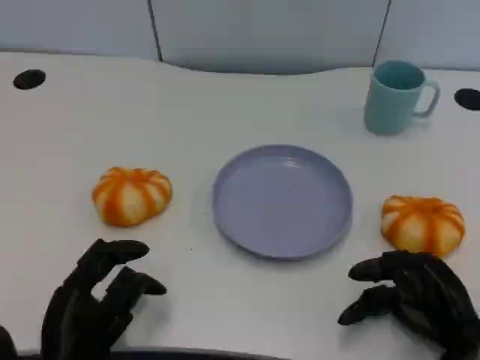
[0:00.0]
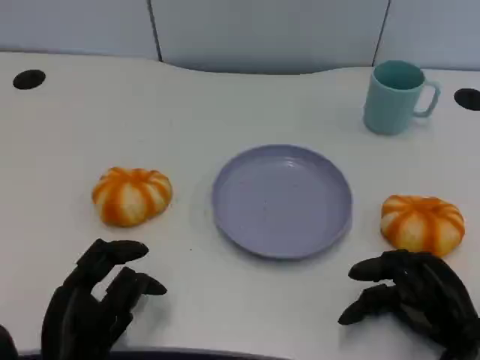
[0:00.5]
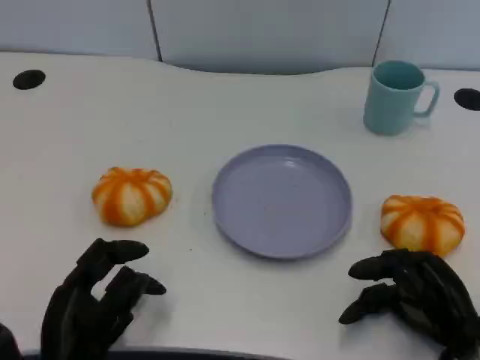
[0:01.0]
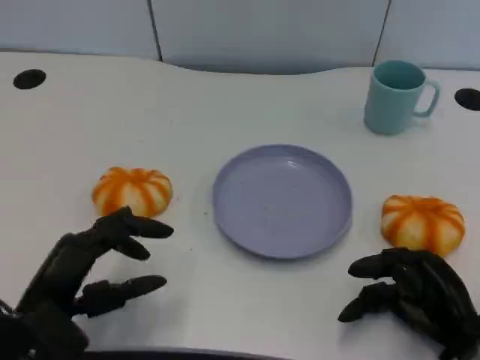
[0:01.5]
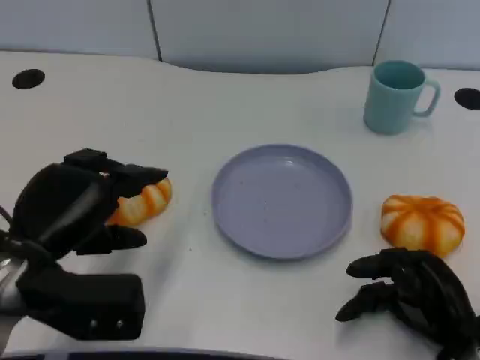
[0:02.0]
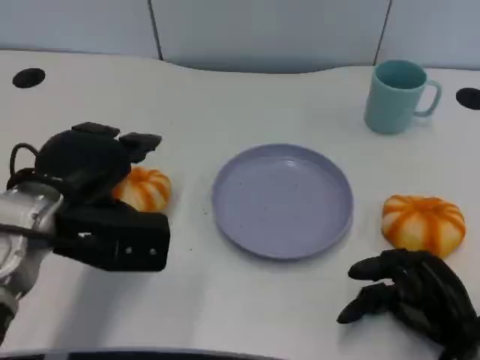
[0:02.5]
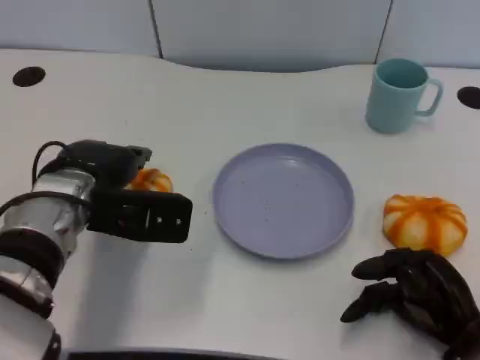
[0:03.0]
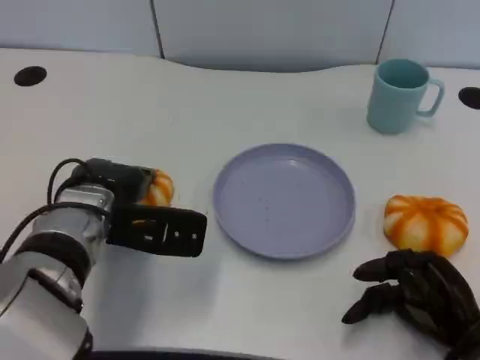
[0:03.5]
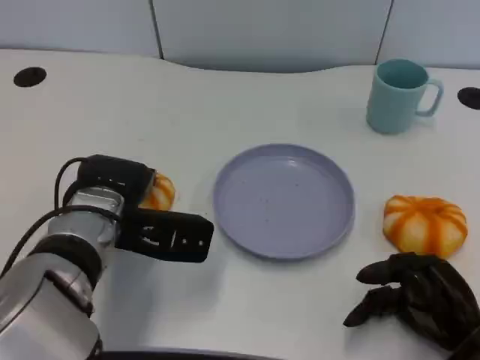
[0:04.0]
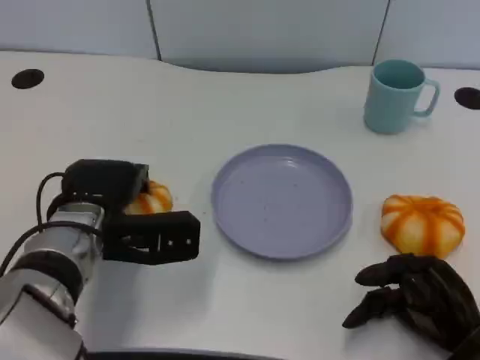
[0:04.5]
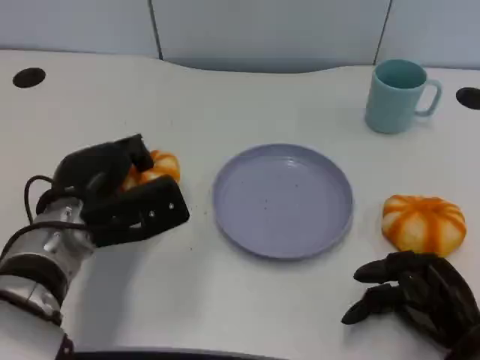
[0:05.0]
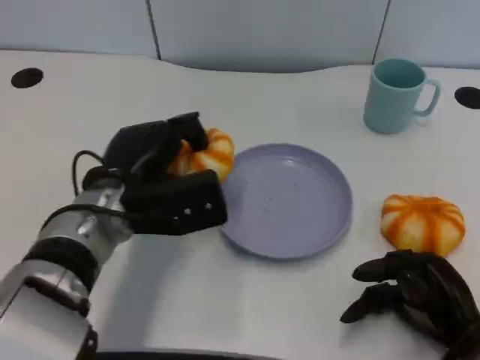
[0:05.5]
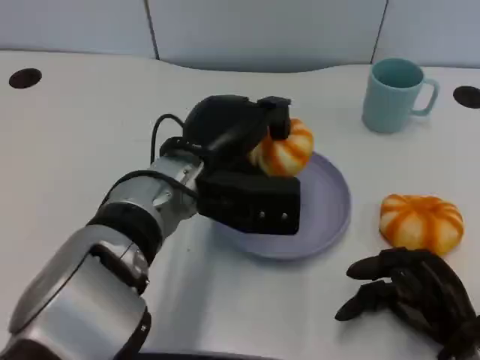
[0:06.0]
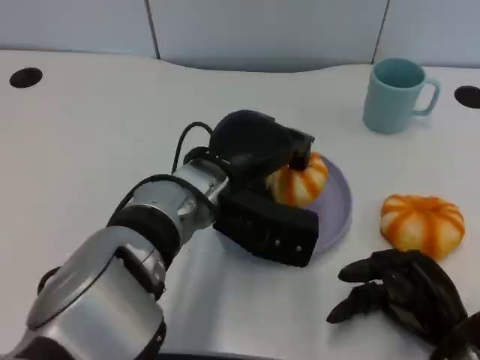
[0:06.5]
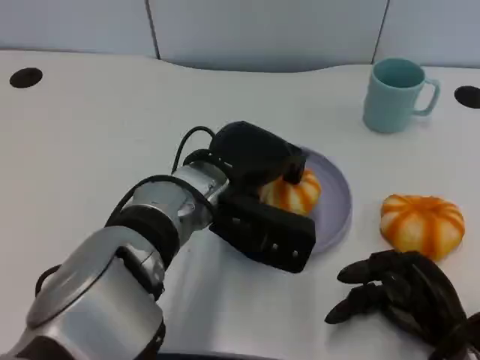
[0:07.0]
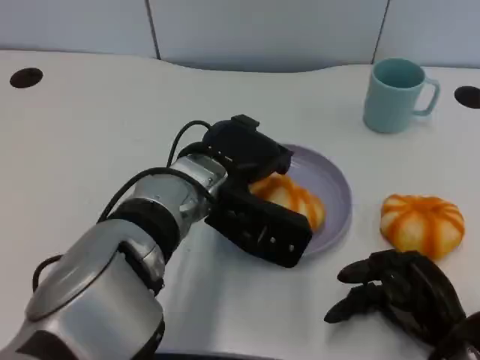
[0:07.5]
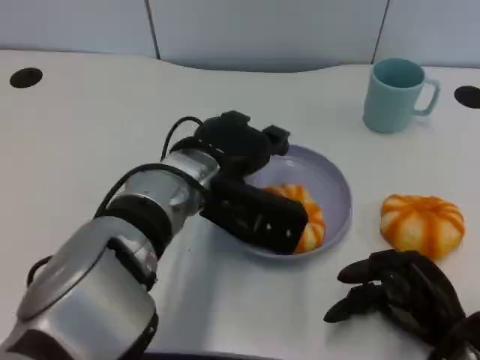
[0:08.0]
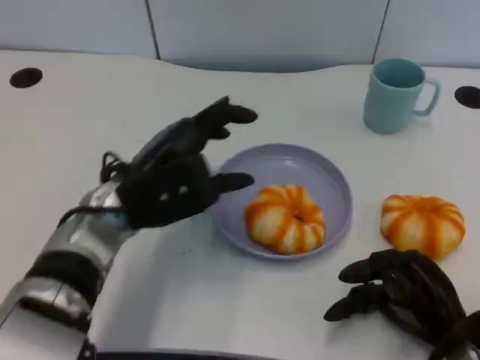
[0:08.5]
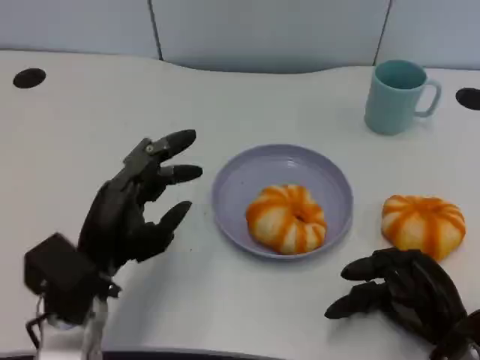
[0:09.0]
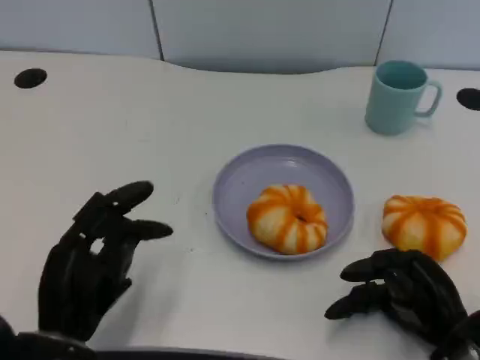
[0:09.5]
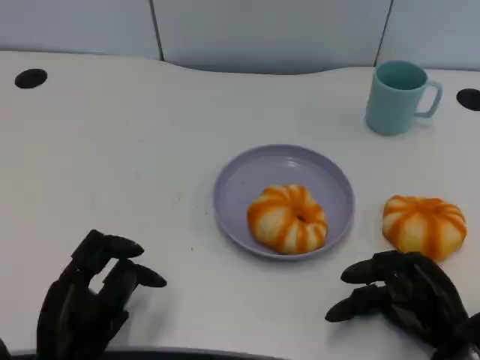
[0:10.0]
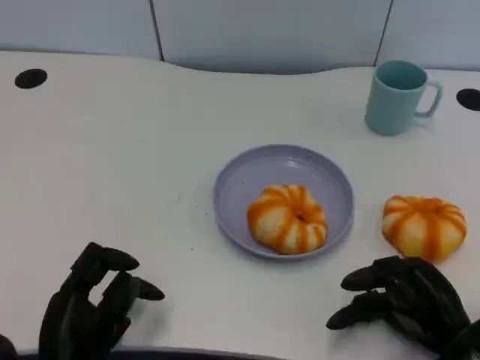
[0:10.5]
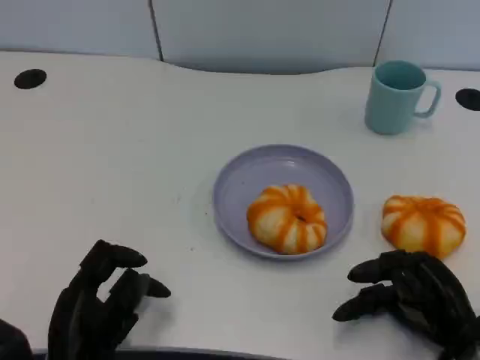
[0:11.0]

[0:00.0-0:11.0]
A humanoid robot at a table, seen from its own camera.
Task of the whole recording: Grasp the bread from the table and place it into the plate.
0:00.0 to 0:02.0: The left hand heads upward and forward, covering some 15 cm.
0:02.0 to 0:03.5: The left hand heads forward and to the right, covering some 10 cm.
0:05.5 to 0:07.5: The left hand moves to the right, about 10 cm.
0:07.5 to 0:09.0: The left hand heads to the left, backward and downward, covering some 15 cm.
0:09.0 to 0:11.0: The left hand goes some 10 cm backward and downward.

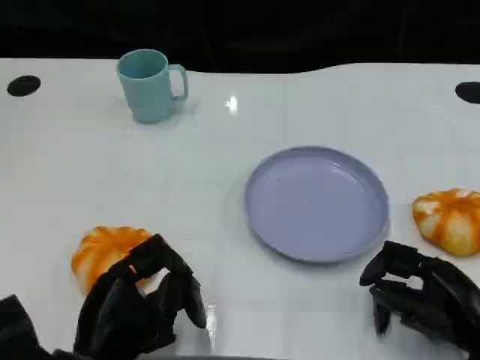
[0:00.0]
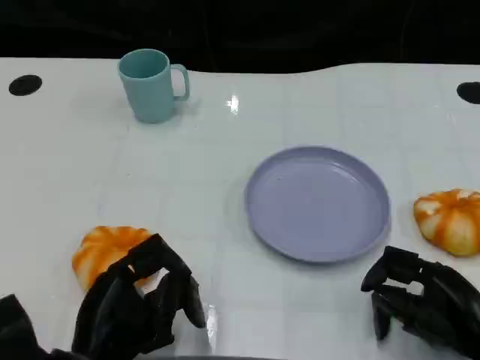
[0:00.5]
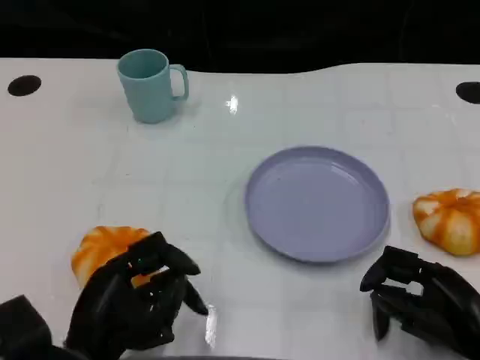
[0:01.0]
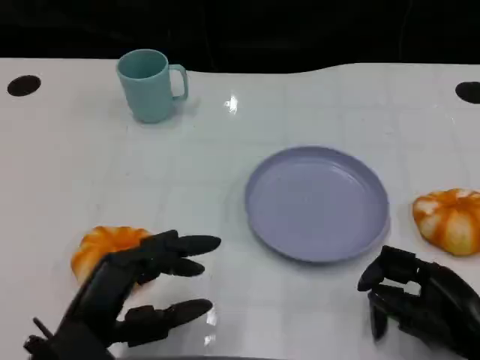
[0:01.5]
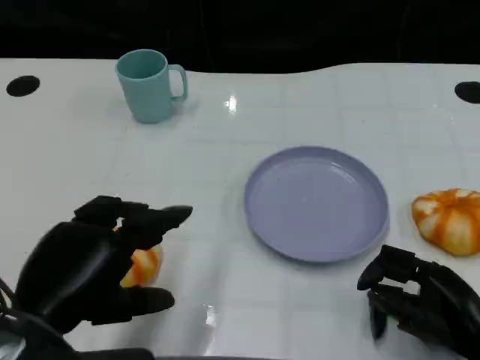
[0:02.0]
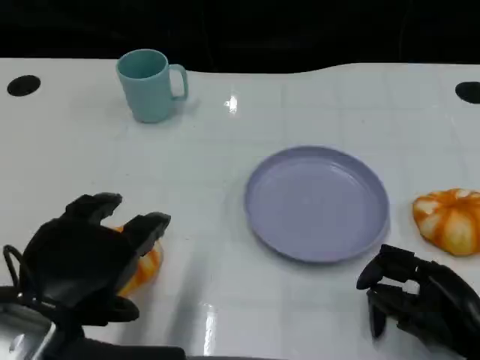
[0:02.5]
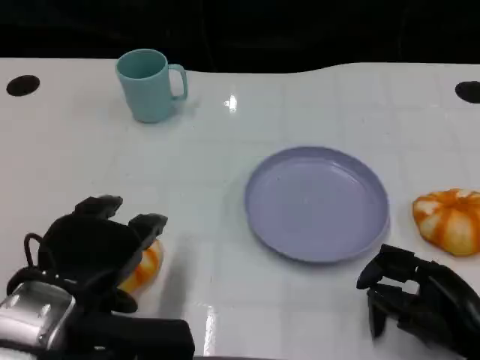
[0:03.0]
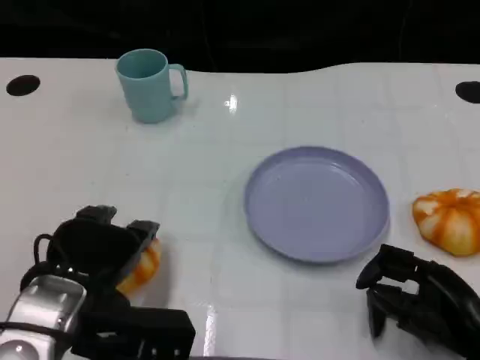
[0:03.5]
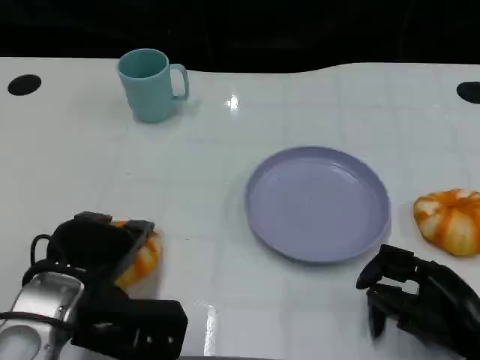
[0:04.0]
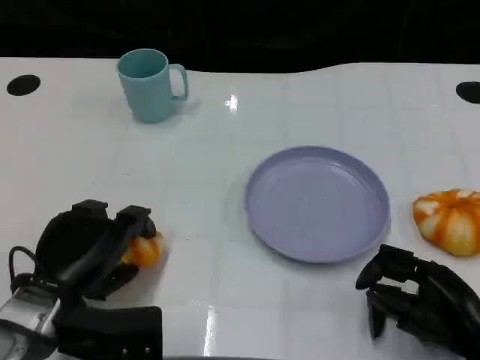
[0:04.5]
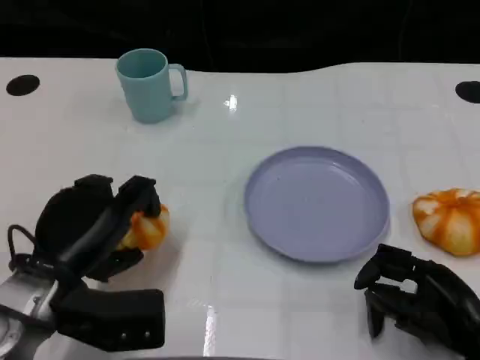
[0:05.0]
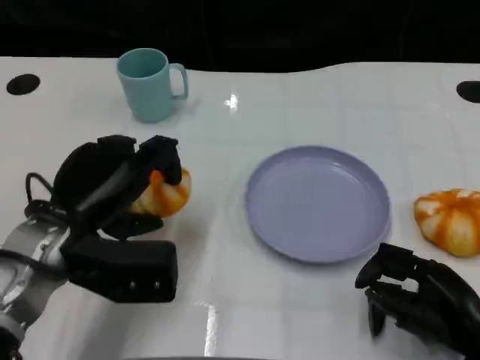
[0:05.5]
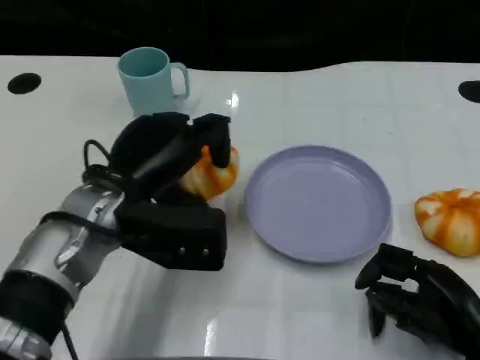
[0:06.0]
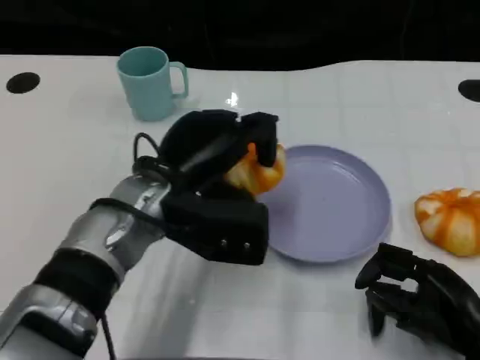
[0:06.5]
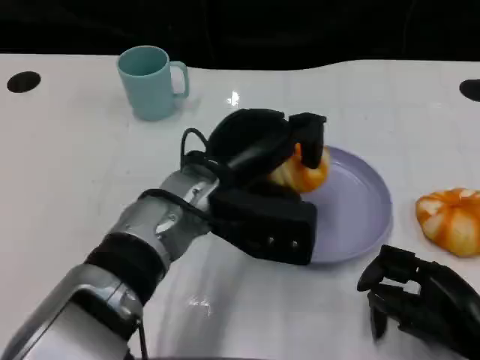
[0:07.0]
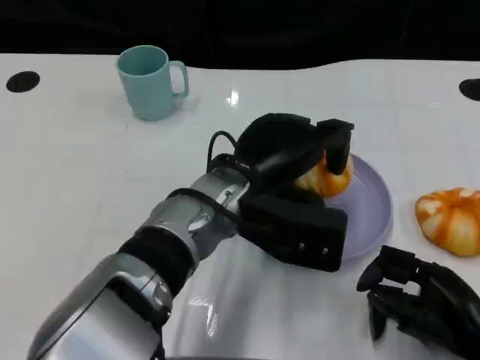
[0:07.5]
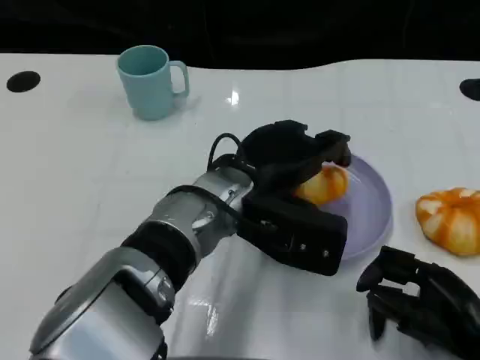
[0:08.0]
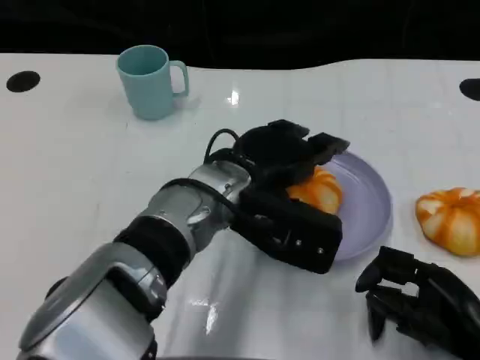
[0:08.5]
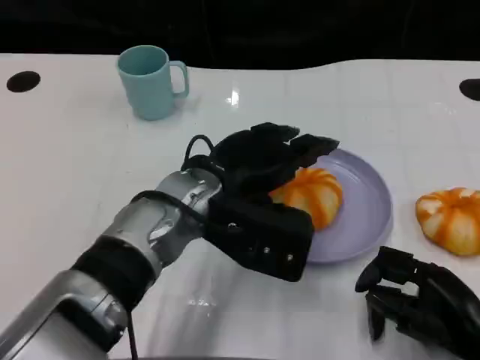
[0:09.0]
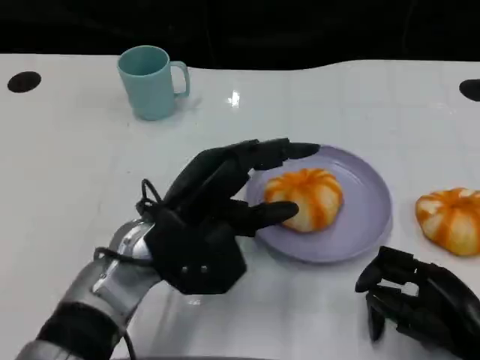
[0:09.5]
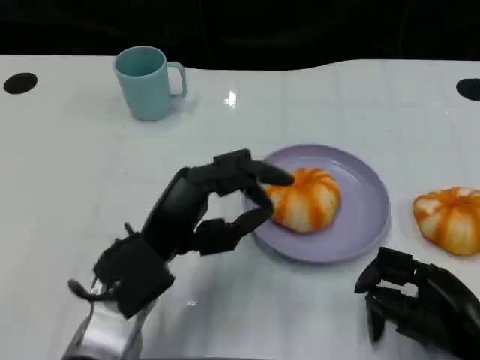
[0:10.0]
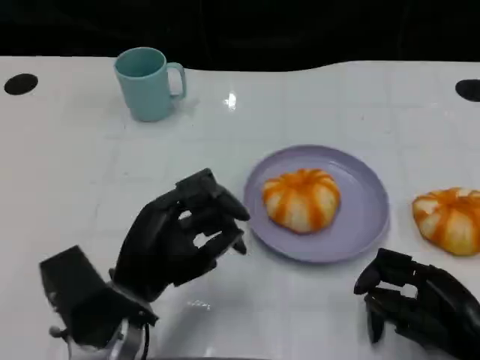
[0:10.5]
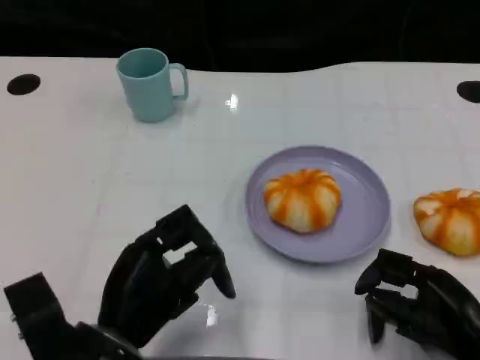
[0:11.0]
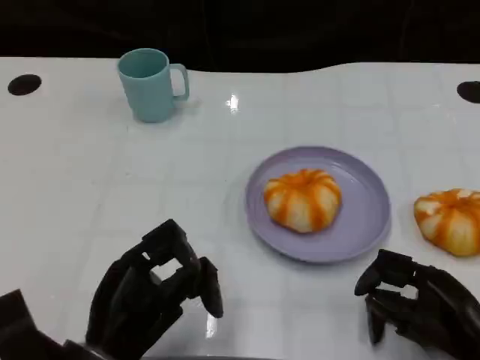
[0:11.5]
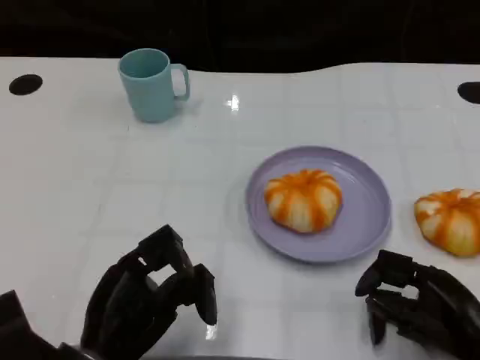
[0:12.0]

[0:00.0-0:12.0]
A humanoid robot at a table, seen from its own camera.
Task of the whole recording: Grasp the bread from the table and place it into the plate.
0:00.0 to 0:02.0: The left hand travels upward by approximately 10 cm.
0:02.0 to 0:04.0: The left hand heads forward and downward, covering approximately 10 cm.
0:04.0 to 0:06.0: The left hand goes about 10 cm forward, upward and to the right.
0:06.0 to 0:08.0: The left hand is displaced to the right by some 10 cm.
0:08.0 to 0:10.0: The left hand shifts roughly 10 cm to the left and backward.
0:10.0 to 0:12.0: The left hand shifts about 5 cm backward.

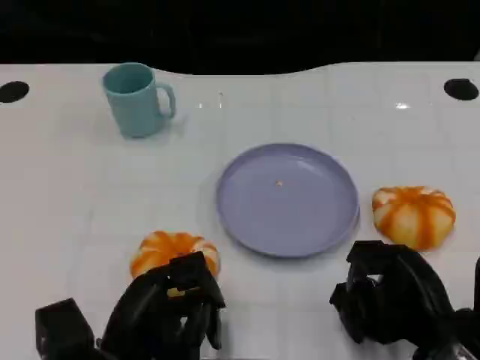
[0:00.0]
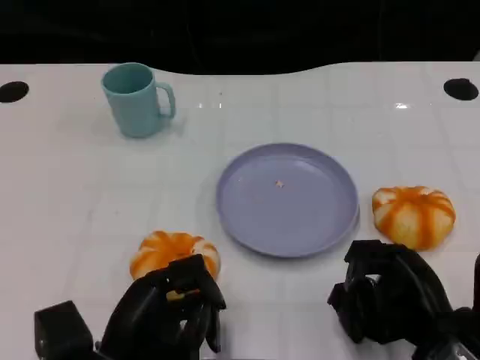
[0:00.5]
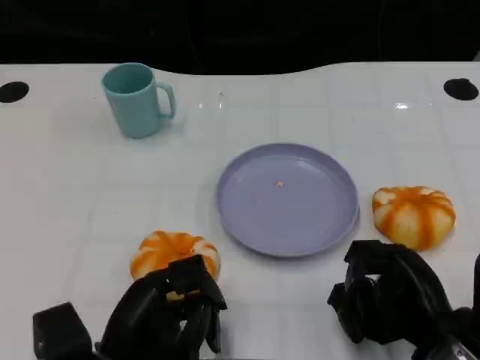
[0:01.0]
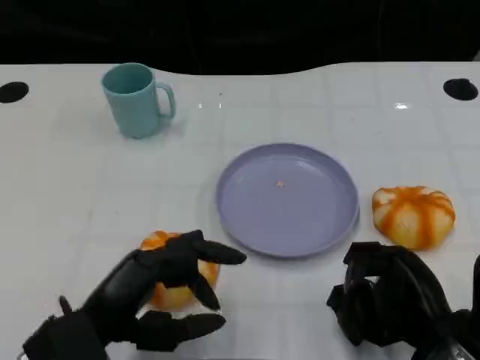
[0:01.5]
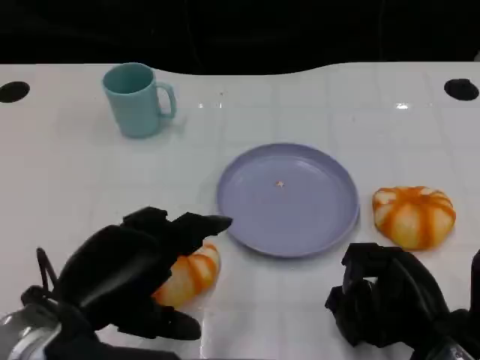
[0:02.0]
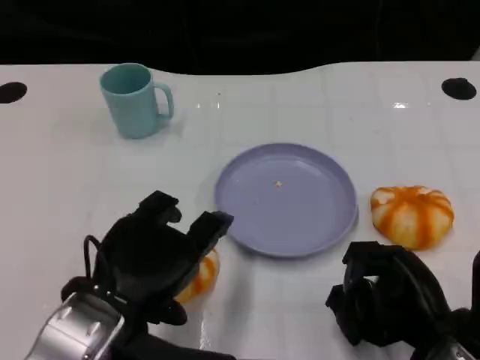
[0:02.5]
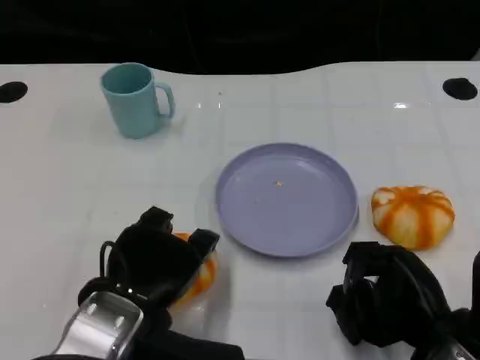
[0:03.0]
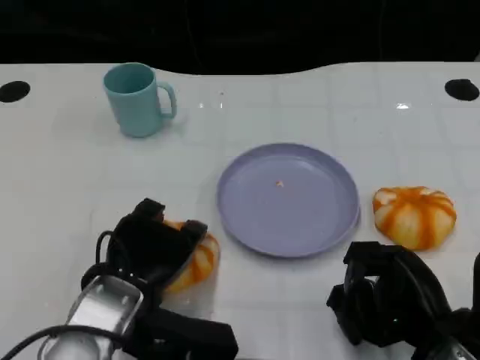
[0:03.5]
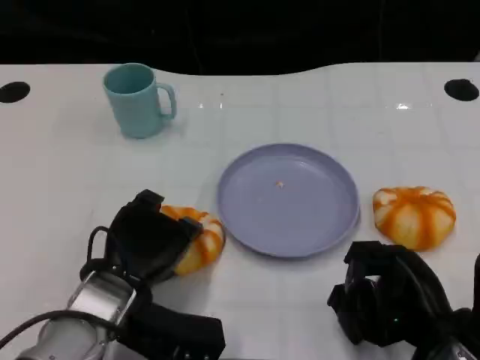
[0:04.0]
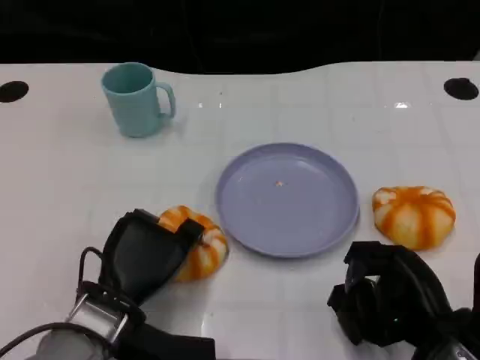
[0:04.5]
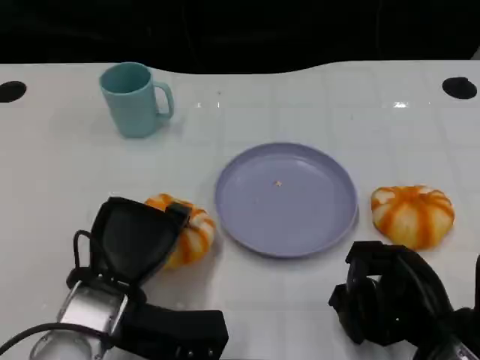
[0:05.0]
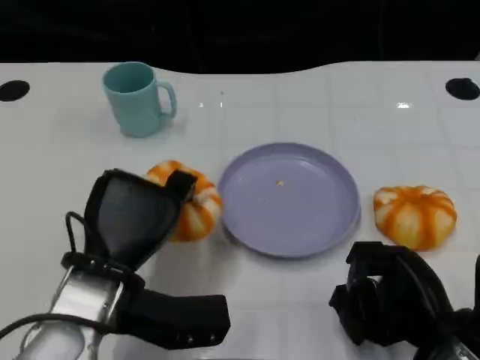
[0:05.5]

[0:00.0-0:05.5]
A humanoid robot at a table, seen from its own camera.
Task of the whole recording: Grasp the bread from the table and place it into the plate.
0:00.0 to 0:02.0: The left hand goes roughly 10 cm upward.
0:02.0 to 0:03.5: The left hand is displaced downward by about 5 cm.
